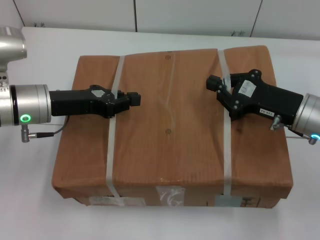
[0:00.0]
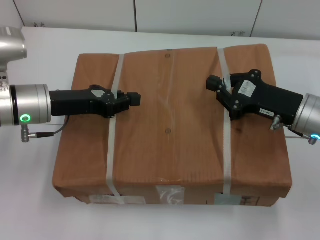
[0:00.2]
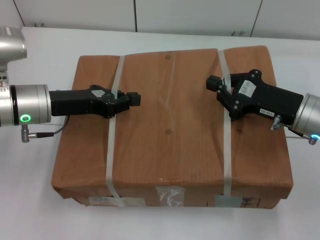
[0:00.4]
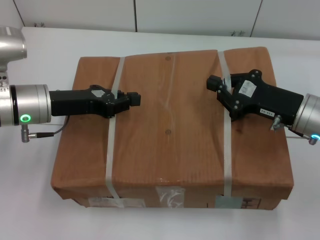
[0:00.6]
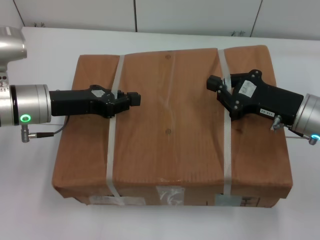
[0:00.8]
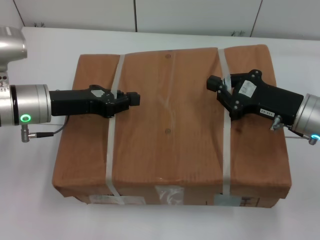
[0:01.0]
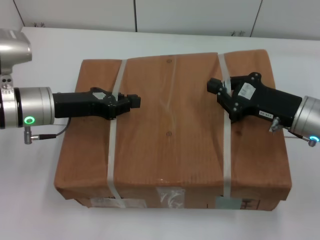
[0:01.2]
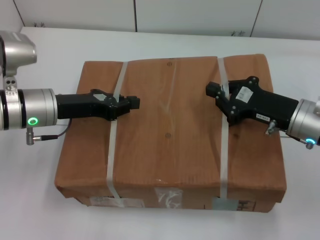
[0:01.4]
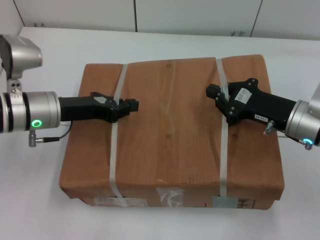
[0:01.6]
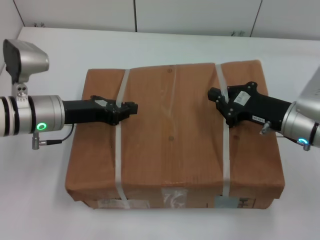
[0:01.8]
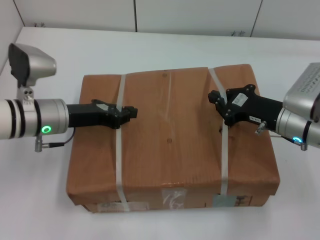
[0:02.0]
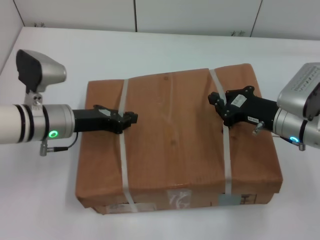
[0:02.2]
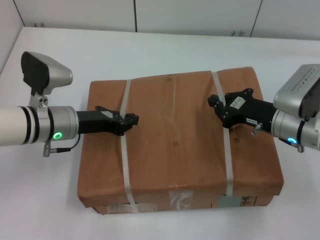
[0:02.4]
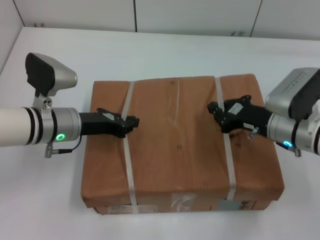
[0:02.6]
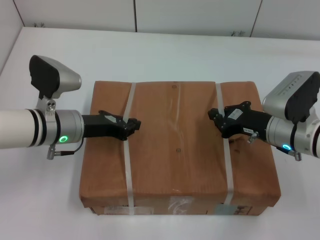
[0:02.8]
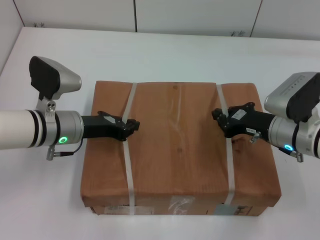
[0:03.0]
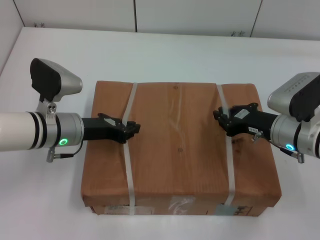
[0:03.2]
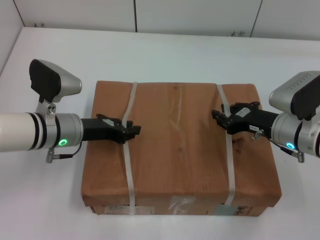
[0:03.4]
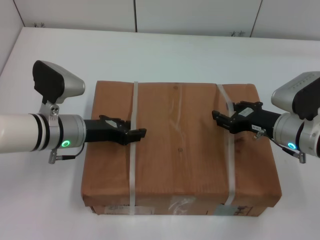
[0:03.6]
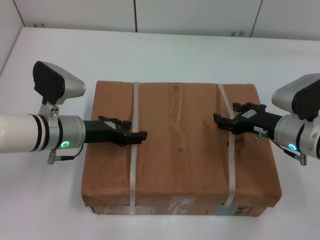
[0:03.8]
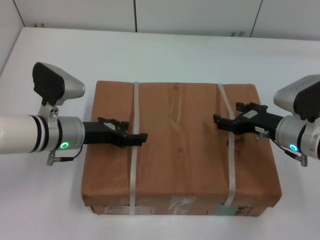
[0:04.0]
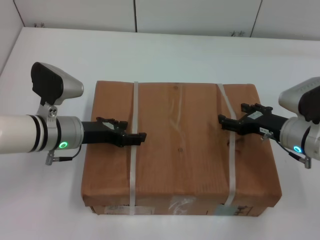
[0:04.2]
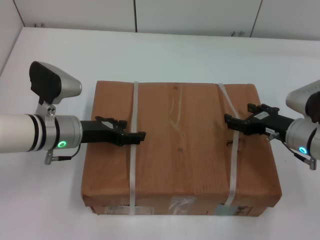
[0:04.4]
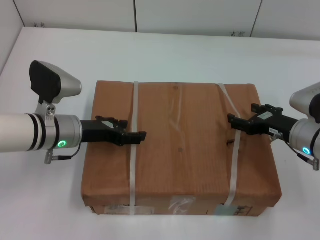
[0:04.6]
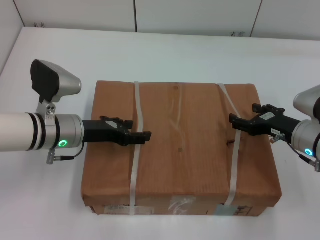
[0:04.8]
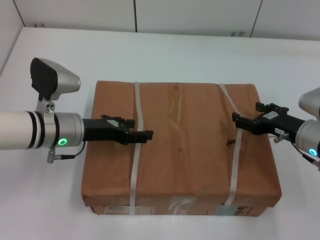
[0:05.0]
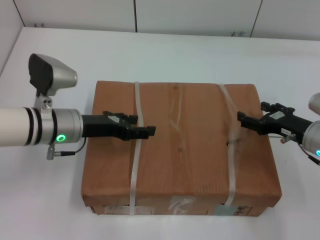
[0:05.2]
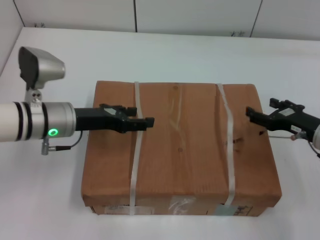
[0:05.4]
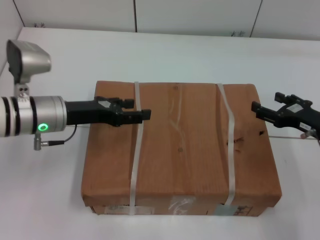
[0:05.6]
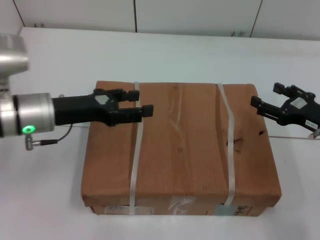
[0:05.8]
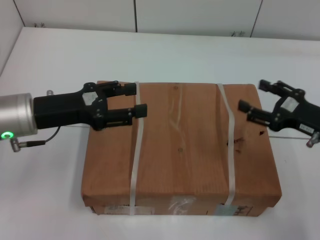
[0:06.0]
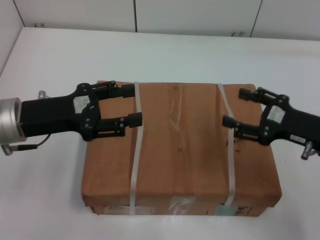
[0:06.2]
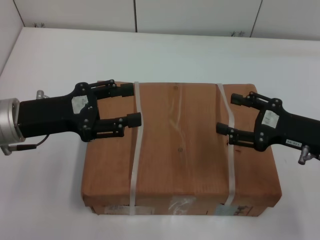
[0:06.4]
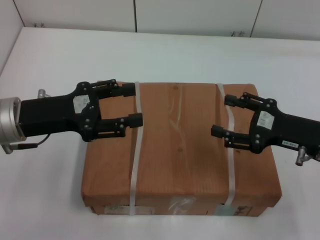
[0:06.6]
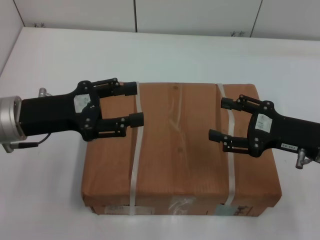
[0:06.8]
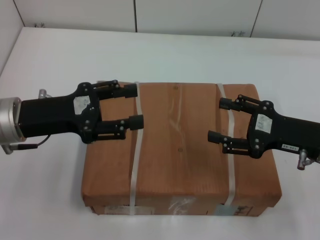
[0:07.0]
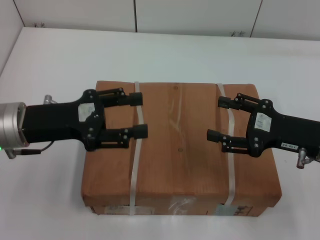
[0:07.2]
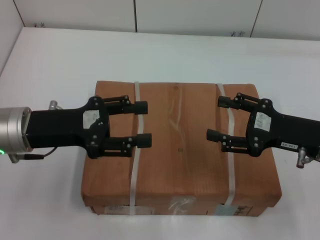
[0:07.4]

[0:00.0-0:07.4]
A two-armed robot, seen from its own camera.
Task of the whole recording: place the box on the table with both arms.
Step, 0:00.0 to 0:02.8: Place the box on the table with left gripper.
Step, 0:00.0 to 0:02.8: Place the box on the table with right gripper.
Step, 0:03.0 to 0:03.8: Loosen the box on the table with left gripper.
Step, 0:03.0 to 0:03.8: Loosen the box on the table with right gripper.
0:00.0 to 0:01.4: The two grippers keep their place.
0:01.4 to 0:03.0: The left gripper changes place by approximately 5 cm.
0:03.0 to 0:04.4: The right gripper opens its fingers. Meanwhile the left gripper opens up.
0:04.4 to 0:06.0: The right gripper moves approximately 10 cm; the left gripper is displaced upward by approximately 5 cm.
